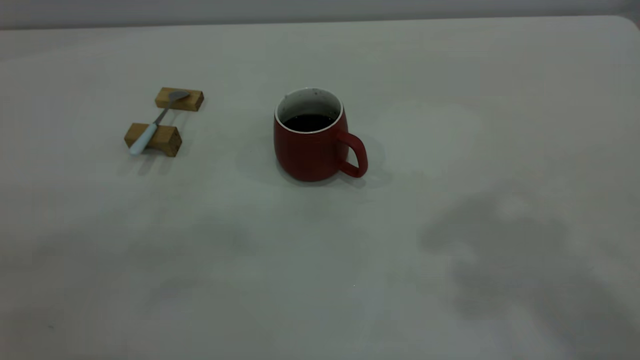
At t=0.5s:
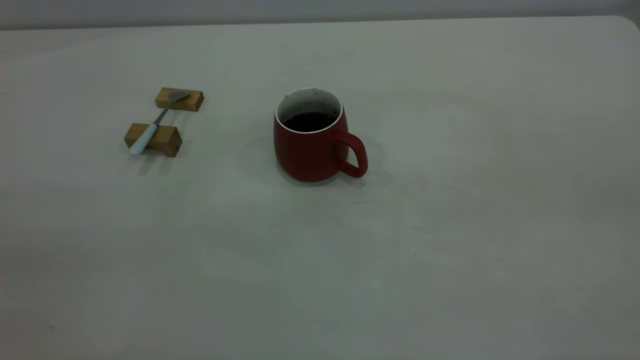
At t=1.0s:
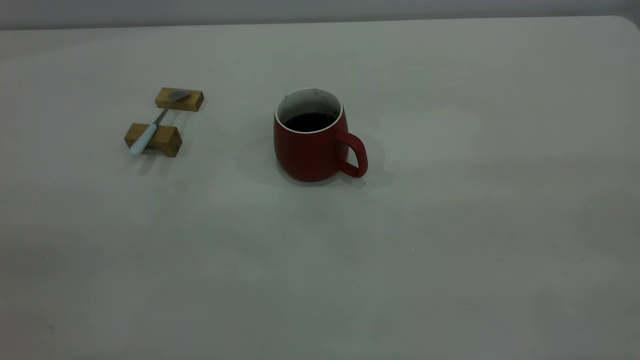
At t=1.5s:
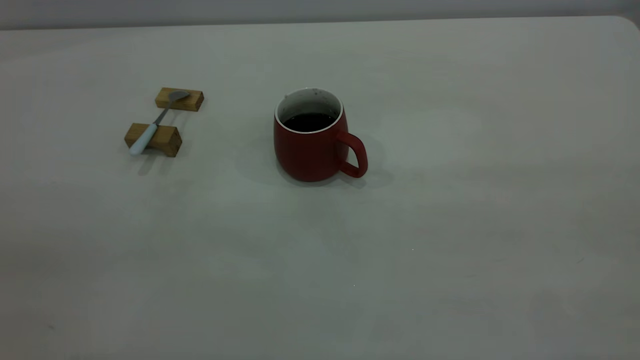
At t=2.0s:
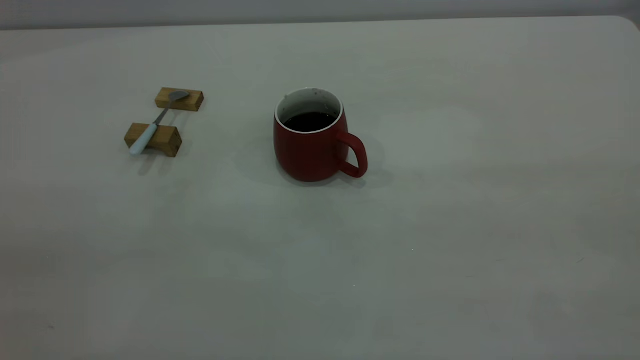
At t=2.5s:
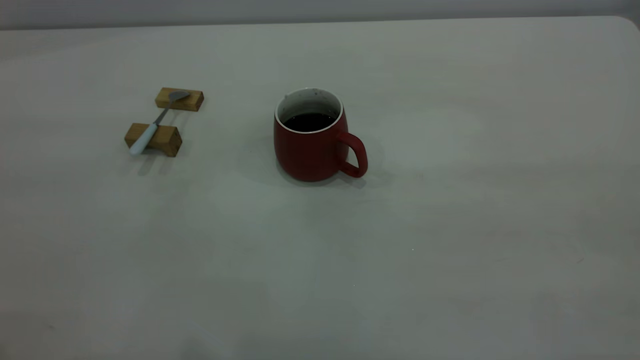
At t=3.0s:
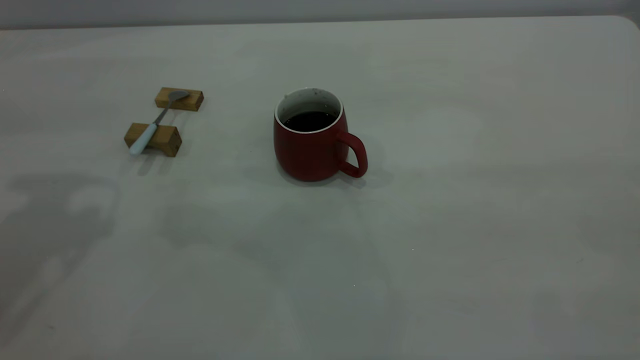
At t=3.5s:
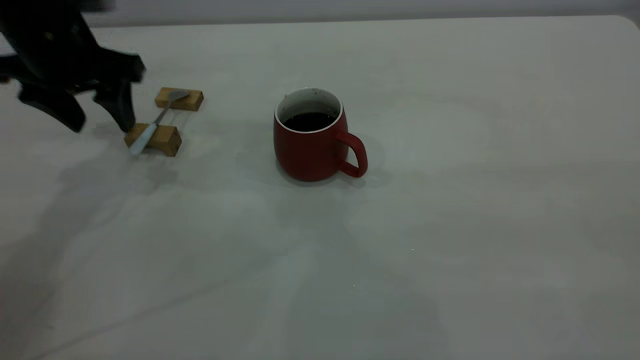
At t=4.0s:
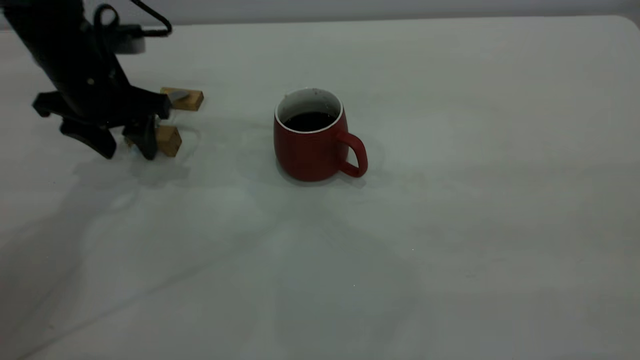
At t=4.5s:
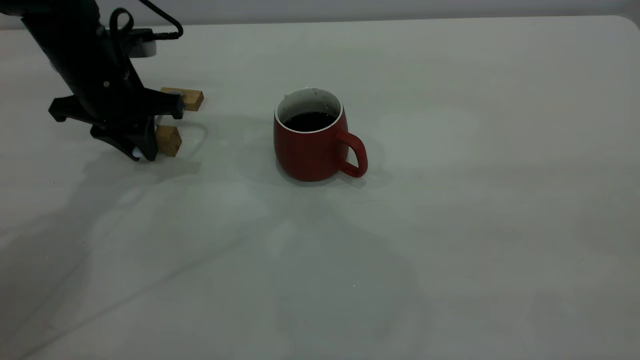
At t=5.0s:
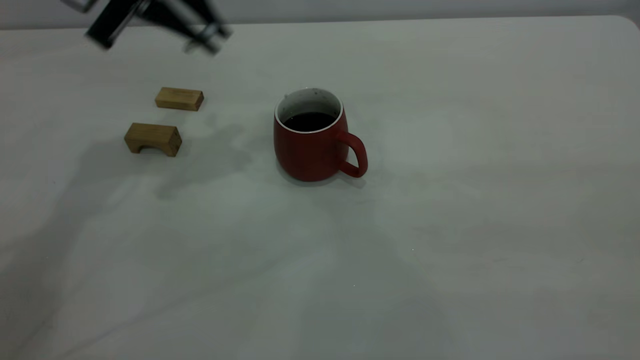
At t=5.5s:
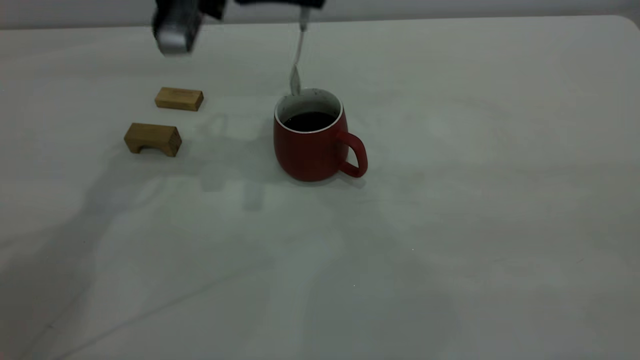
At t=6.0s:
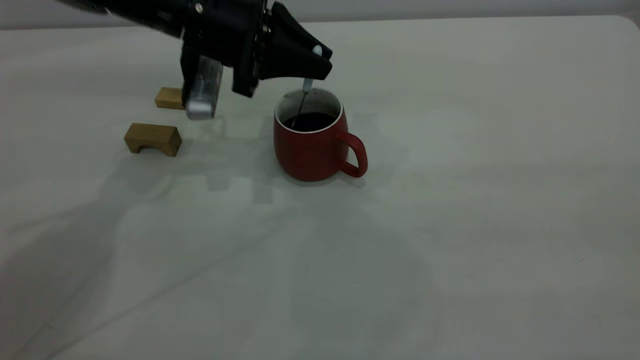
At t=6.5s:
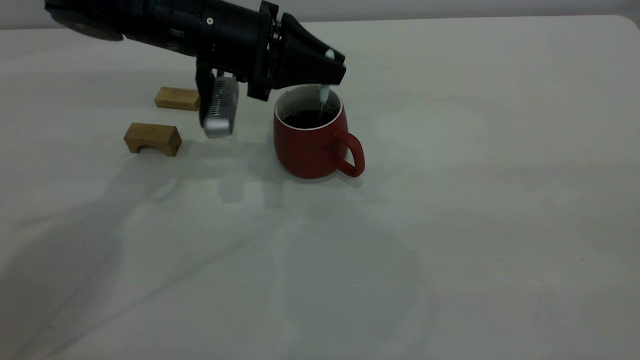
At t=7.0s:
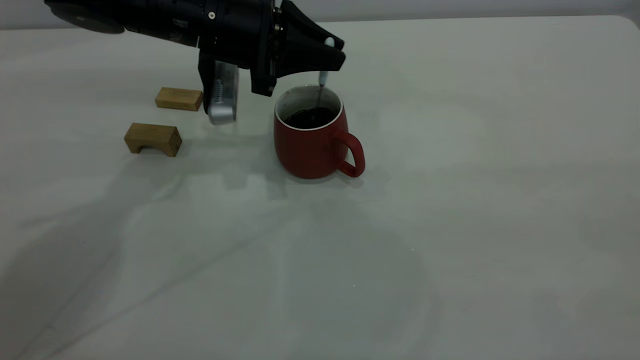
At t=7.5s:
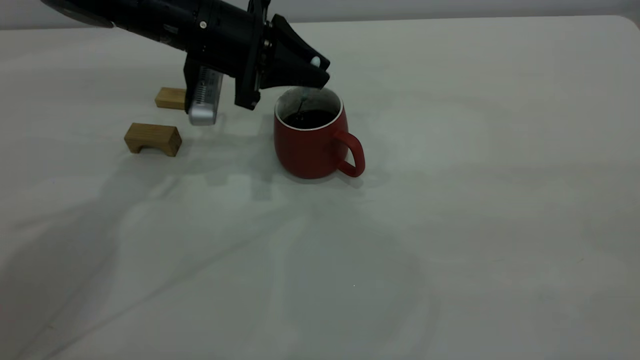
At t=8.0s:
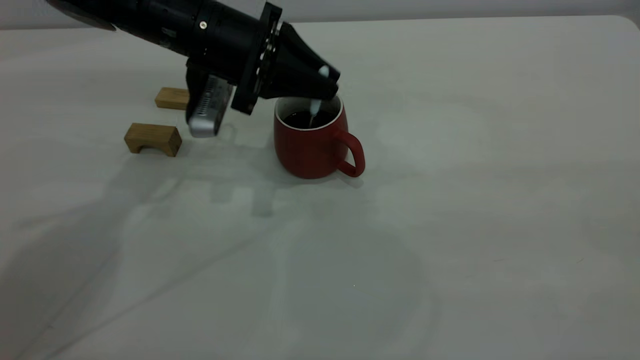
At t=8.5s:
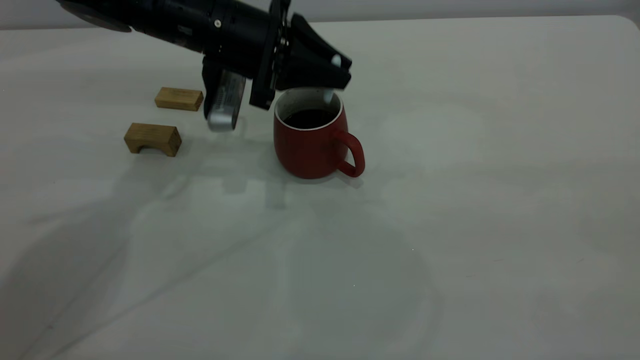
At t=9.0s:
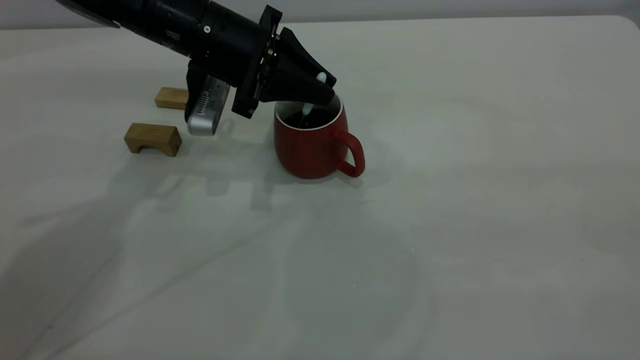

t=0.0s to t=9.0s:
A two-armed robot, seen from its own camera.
Step, t=0.0s to t=4.5s: Pick up the spoon.
t=2.0s to t=4.5s: The left gripper is displaced forward and downward by about 50 cm, and closes its fingers.
t=4.5s to t=7.0s: The left gripper heads to the right, covering about 10 cm, and moves roughly 15 cm upward and comes back.
t=7.0s to t=9.0s: There are only small adjustments of the grippers.

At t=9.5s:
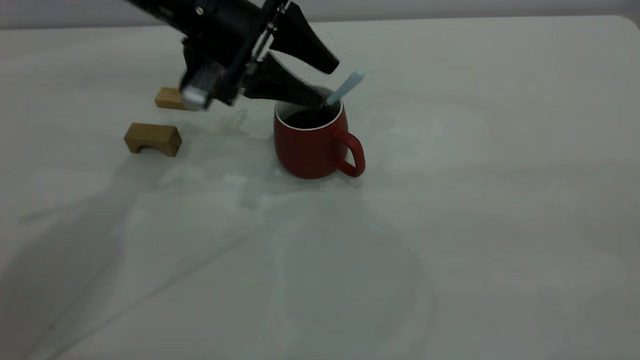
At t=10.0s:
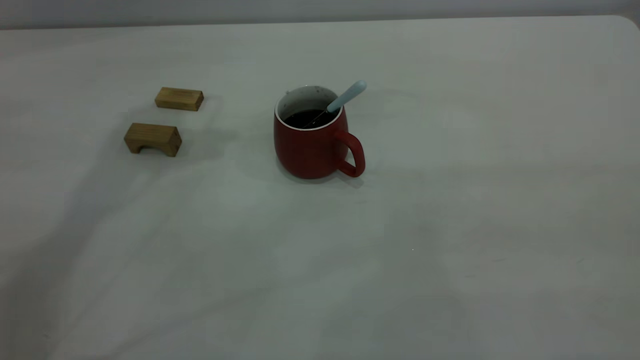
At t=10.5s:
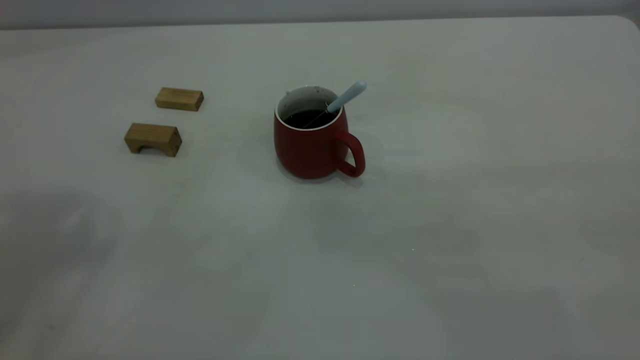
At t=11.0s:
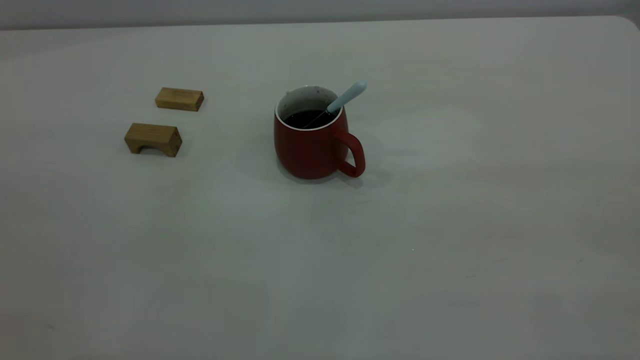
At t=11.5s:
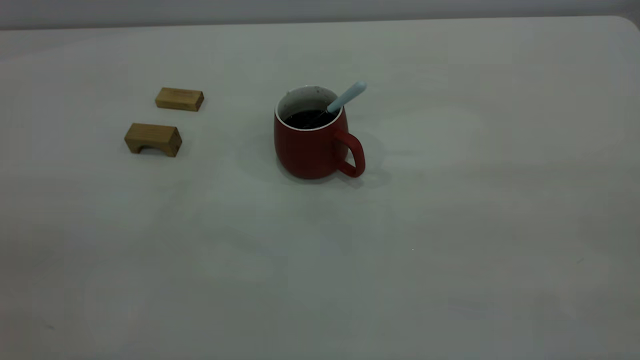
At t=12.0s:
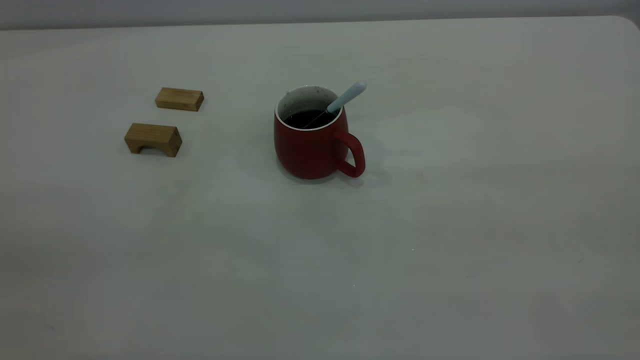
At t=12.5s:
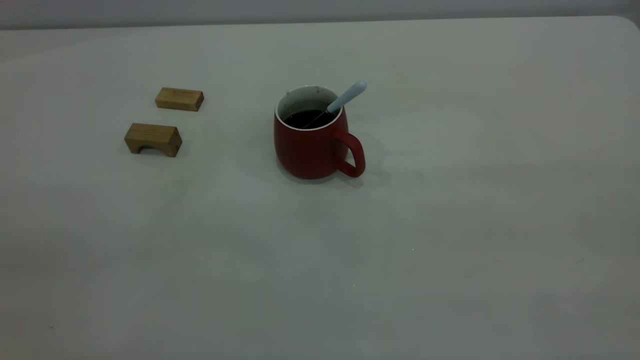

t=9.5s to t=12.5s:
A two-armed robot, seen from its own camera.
t=9.5s to t=11.0s: The left gripper travels backward, upward and to the left by some 50 cm.
